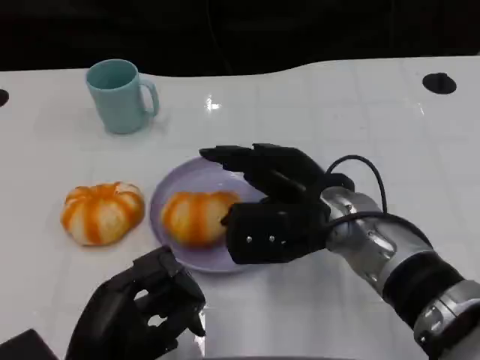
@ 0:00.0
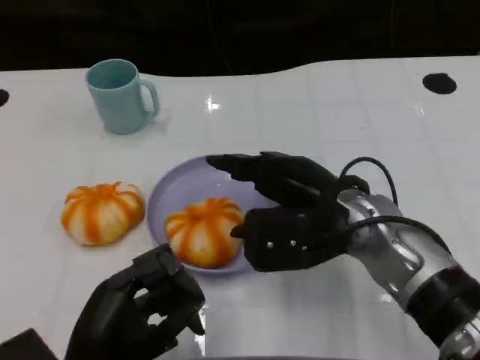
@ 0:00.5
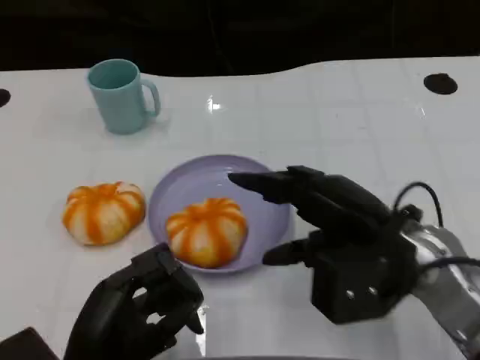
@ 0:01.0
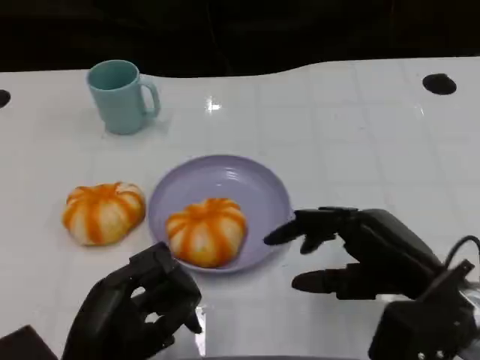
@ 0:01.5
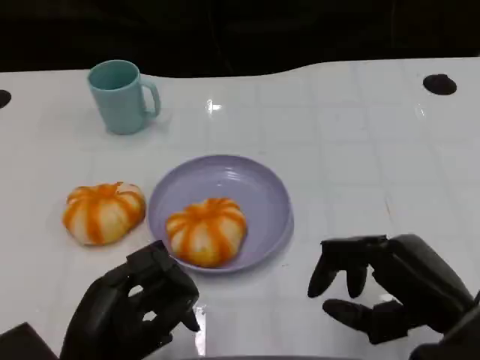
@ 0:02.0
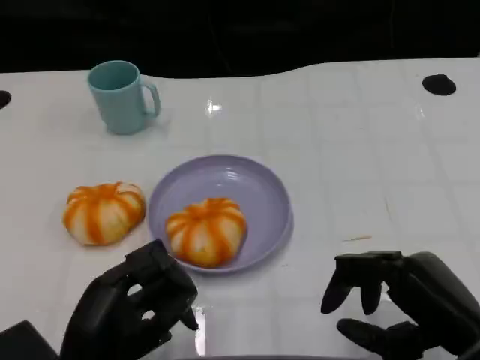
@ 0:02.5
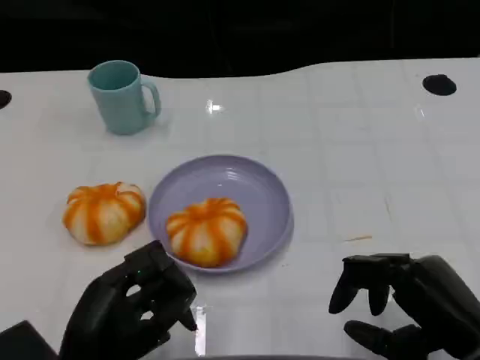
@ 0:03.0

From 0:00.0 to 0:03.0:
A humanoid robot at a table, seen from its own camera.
Task of the whole recording: Grasp the bread from the table and place it into the plate.
From 0:00.0 to 0:01.5: The right hand shifts roughly 15 cm to the right and backward.
From 0:01.5 to 0:03.0: The right hand changes place by about 5 cm.

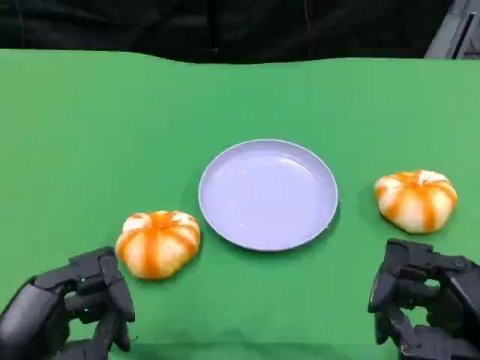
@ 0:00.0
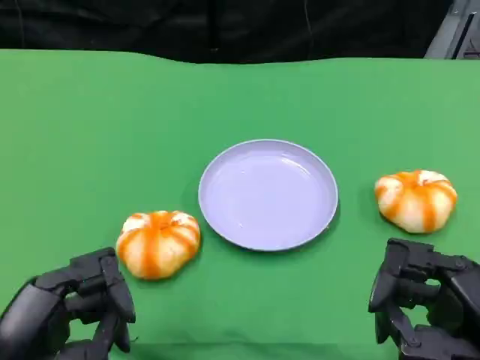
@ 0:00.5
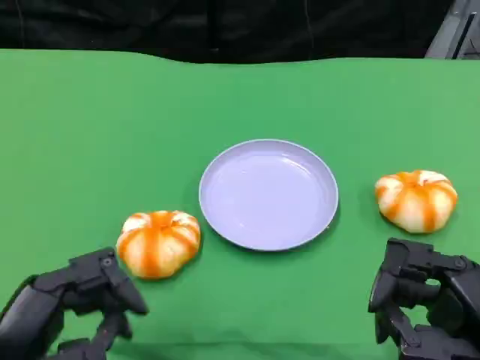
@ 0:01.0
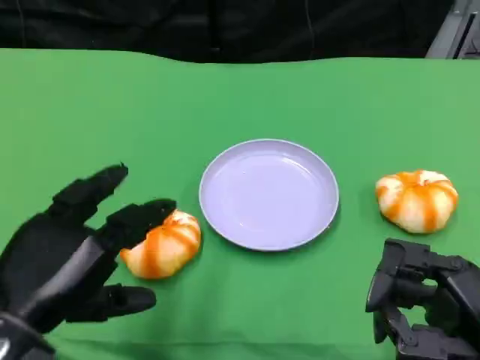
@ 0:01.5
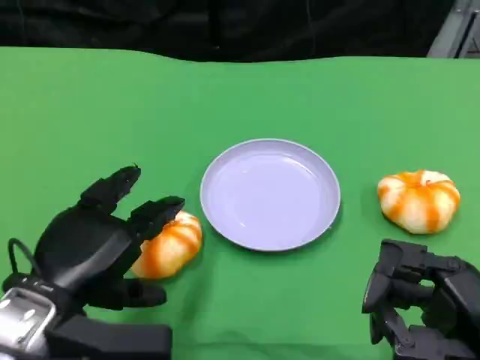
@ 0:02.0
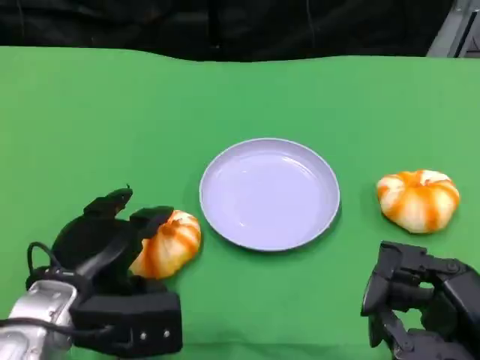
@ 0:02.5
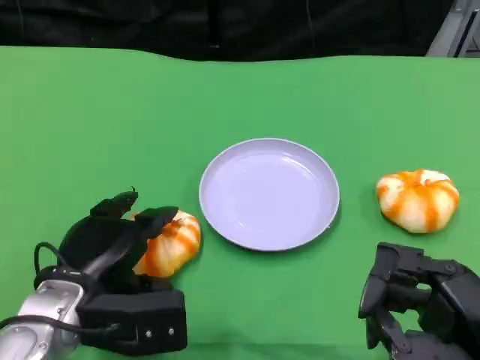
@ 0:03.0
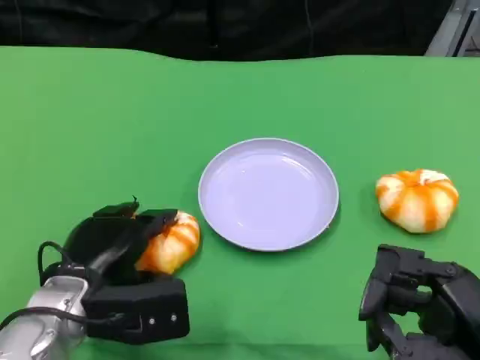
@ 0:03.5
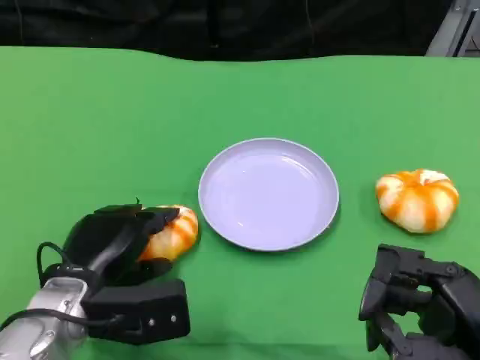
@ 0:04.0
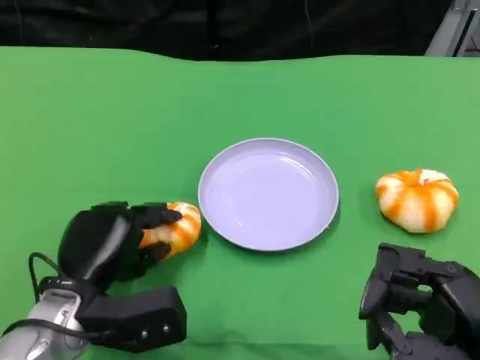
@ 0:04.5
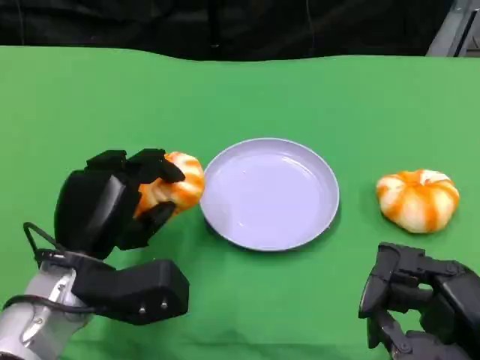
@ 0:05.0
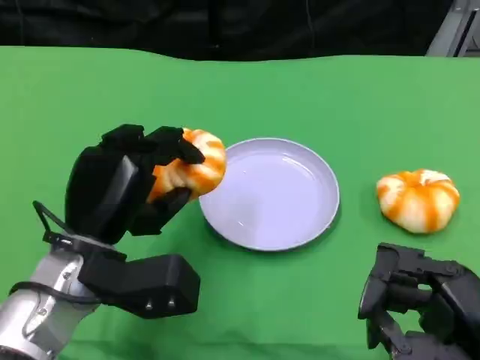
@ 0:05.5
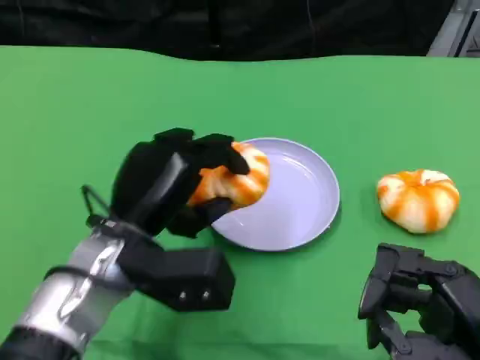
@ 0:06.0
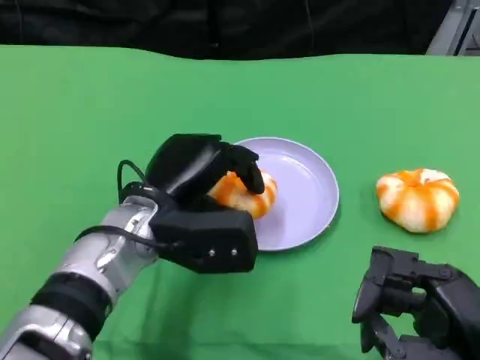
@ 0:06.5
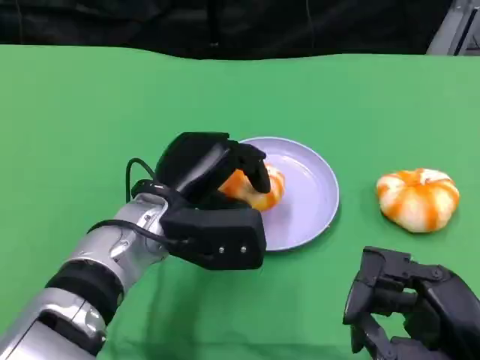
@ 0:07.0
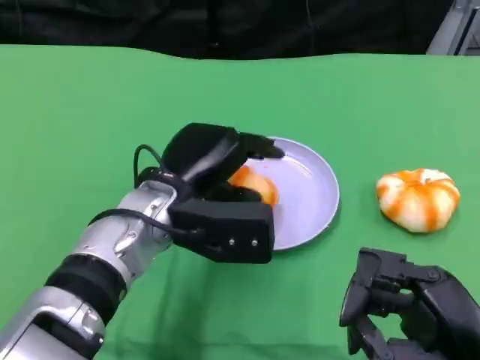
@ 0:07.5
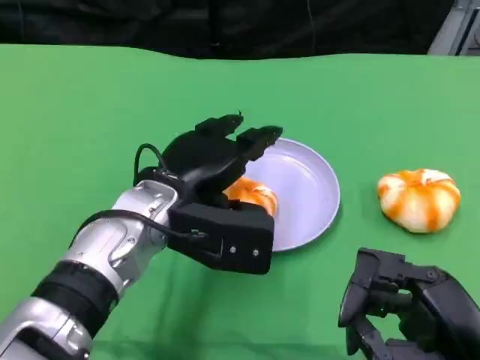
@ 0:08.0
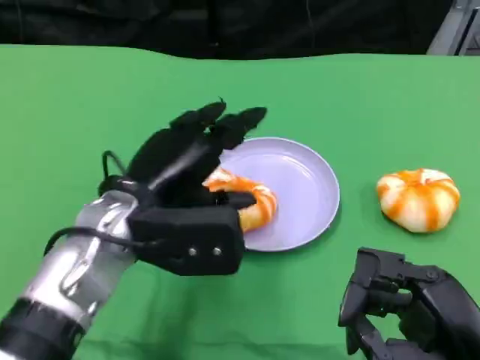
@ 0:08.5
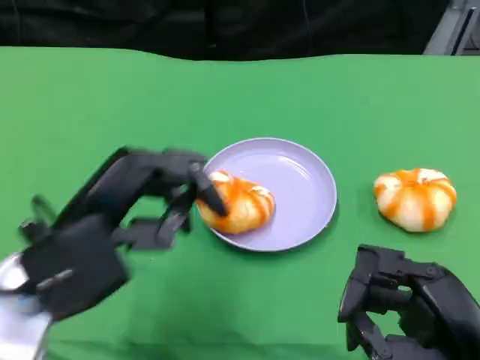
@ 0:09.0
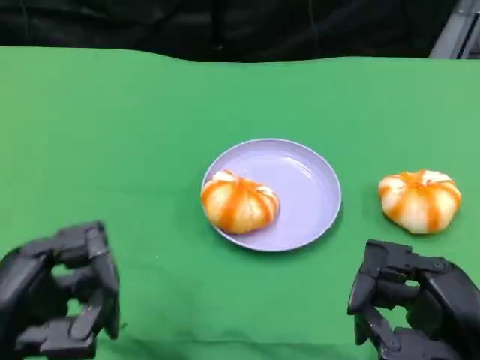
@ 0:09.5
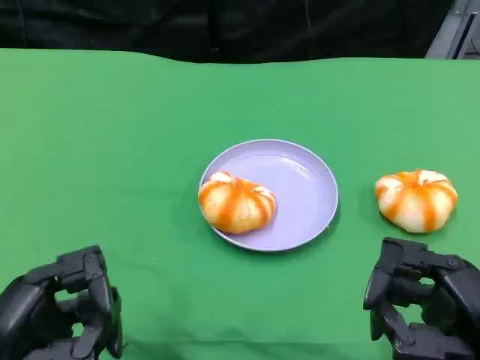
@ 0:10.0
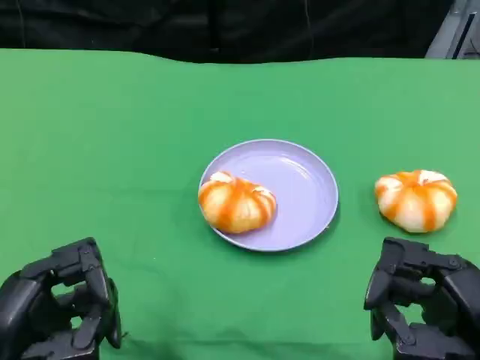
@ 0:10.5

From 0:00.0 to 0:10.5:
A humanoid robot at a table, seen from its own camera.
Task of the whole recording: Grasp the bread from the table and place it into the plate.
From 0:00.0 to 0:02.0: The left hand travels forward by approximately 10 cm.
From 0:02.0 to 0:04.0: The left hand moves downward, roughly 5 cm.
From 0:04.0 to 0:06.5: The left hand heads to the right, upward and forward, covering some 10 cm.
From 0:06.5 to 0:08.5: The hands move only a little.
From 0:08.5 to 0:10.5: The left hand moves backward and to the left, some 20 cm.

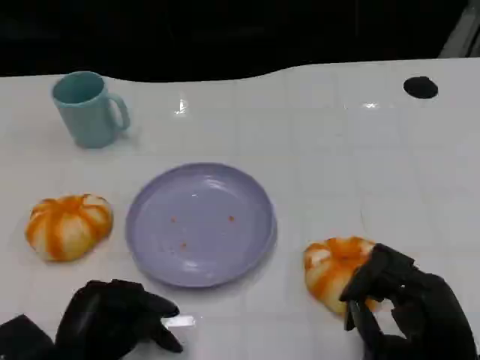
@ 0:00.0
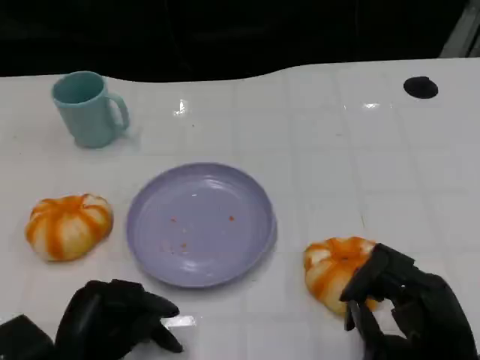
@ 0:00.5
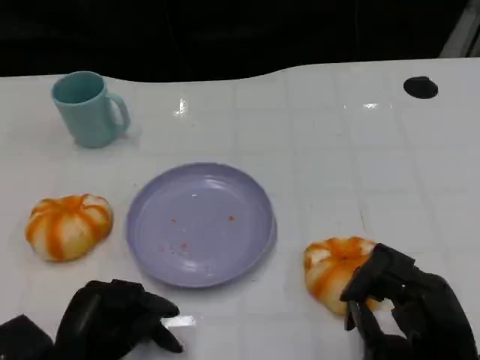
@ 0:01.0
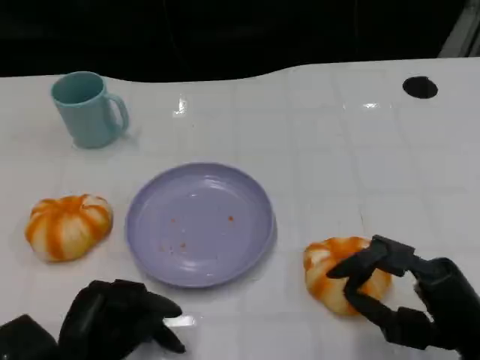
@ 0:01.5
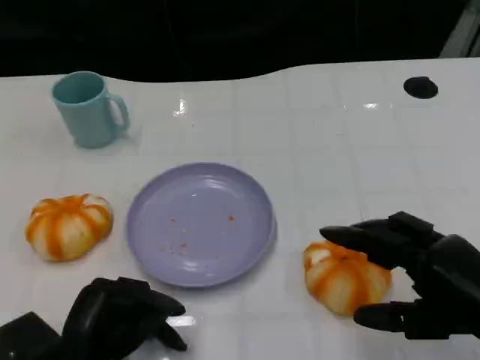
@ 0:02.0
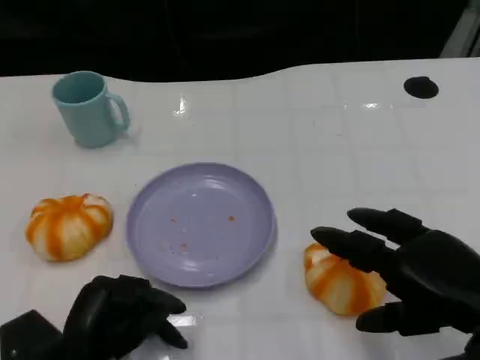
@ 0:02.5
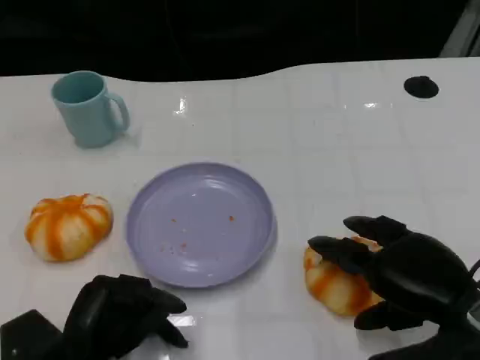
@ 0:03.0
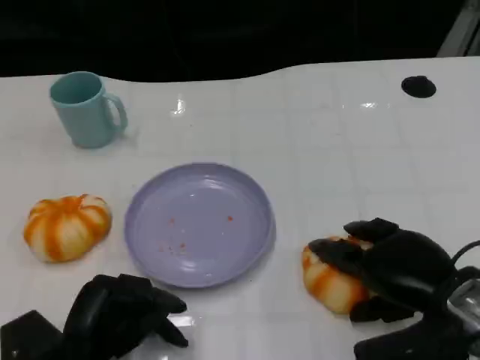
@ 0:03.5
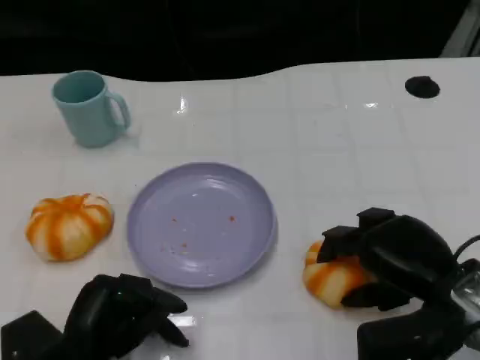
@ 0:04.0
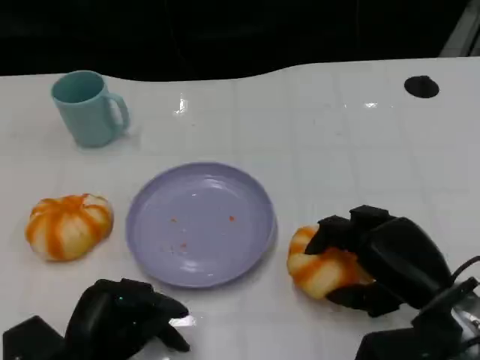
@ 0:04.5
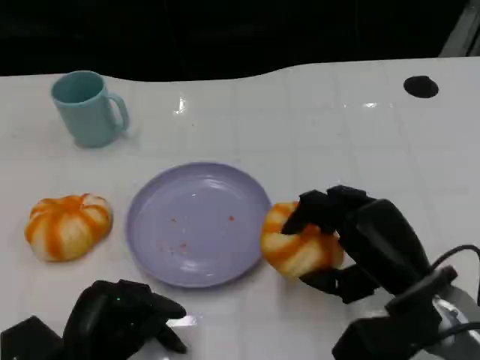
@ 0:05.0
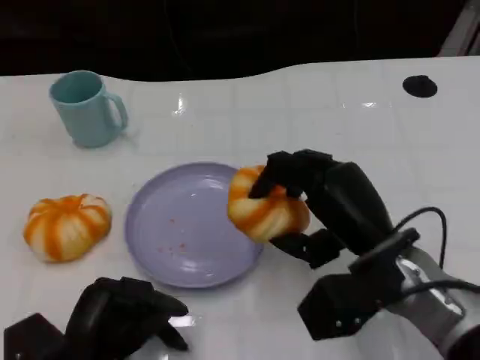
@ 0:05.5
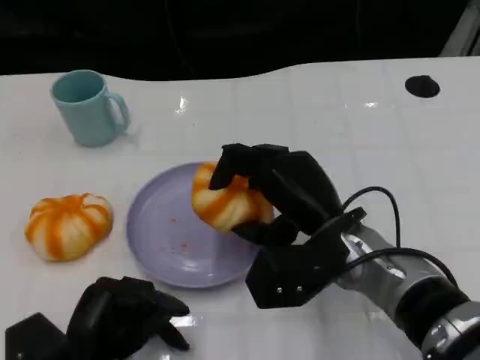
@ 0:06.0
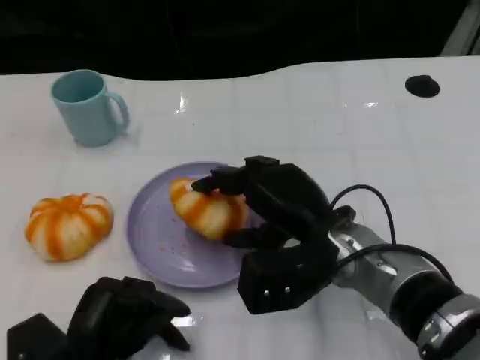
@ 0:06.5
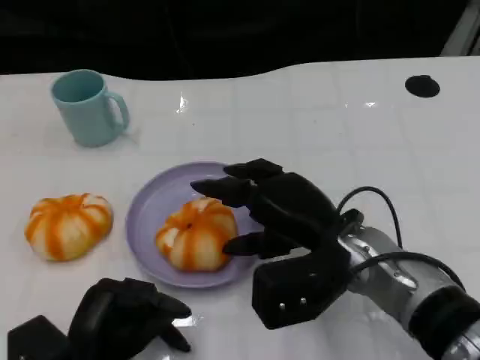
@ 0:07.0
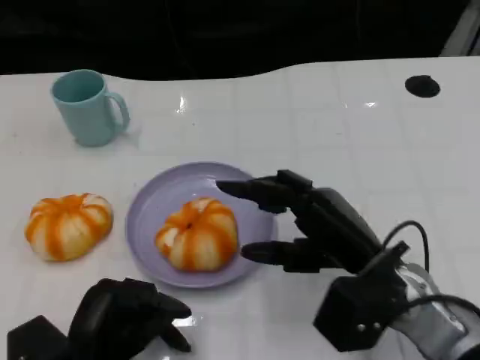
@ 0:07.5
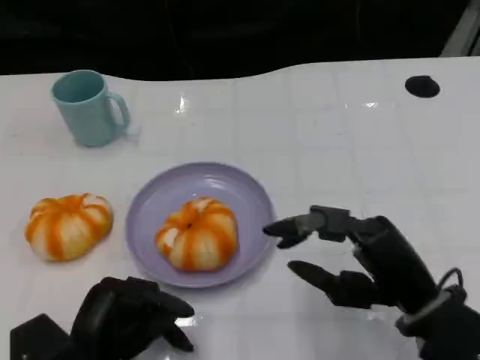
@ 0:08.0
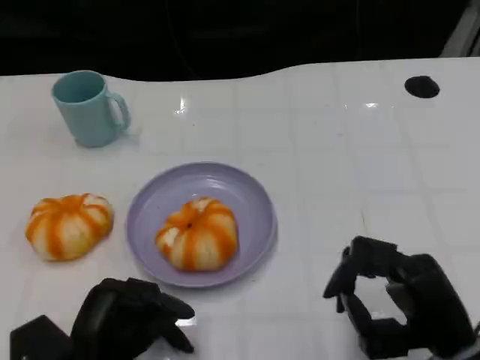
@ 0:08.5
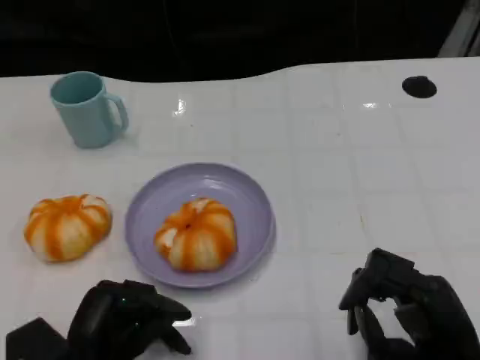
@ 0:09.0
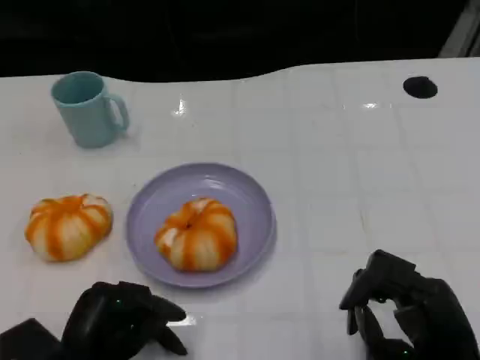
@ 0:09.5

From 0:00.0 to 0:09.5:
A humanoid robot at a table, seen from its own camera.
Task of the whole recording: Grasp the bread from the table and place it into the plate.
From 0:00.0 to 0:02.0: The right hand shifts about 5 cm upward.
From 0:02.0 to 0:04.0: The right hand heads forward, covering roughly 5 cm.
From 0:04.0 to 0:05.5: The right hand goes approximately 10 cm to the left.
From 0:07.5 to 0:09.5: The right hand travels backward and to the right by approximately 10 cm.
